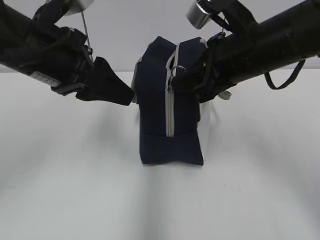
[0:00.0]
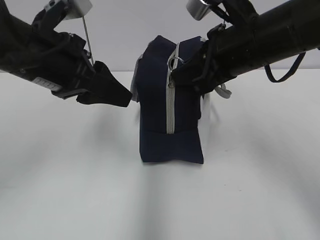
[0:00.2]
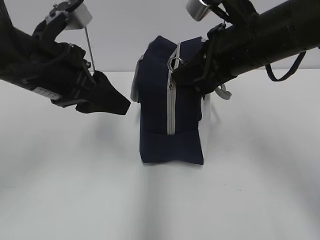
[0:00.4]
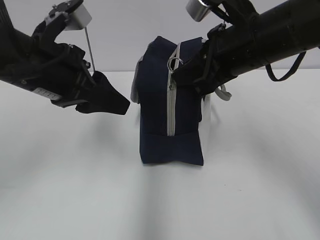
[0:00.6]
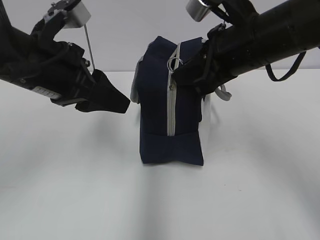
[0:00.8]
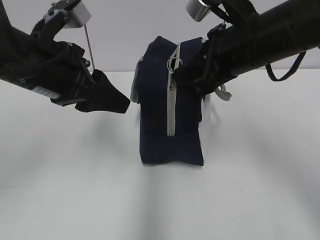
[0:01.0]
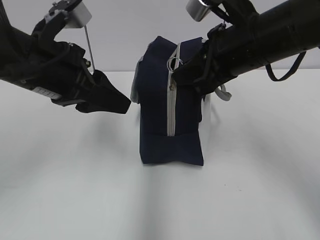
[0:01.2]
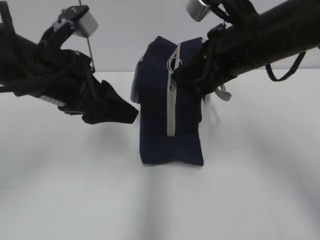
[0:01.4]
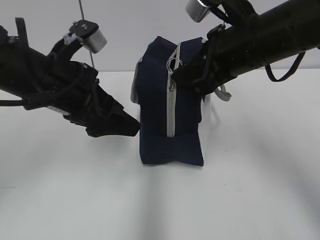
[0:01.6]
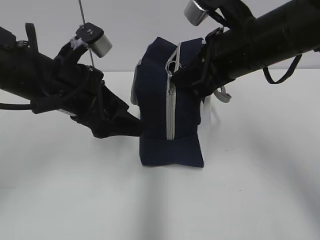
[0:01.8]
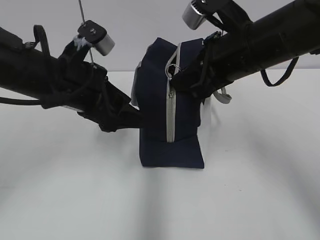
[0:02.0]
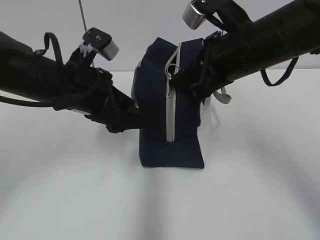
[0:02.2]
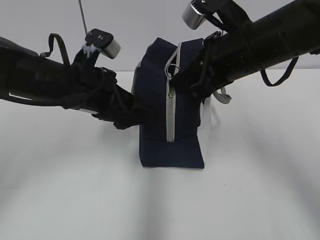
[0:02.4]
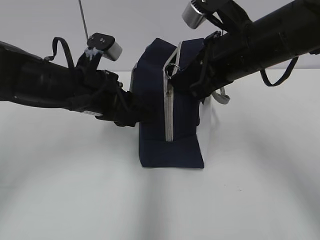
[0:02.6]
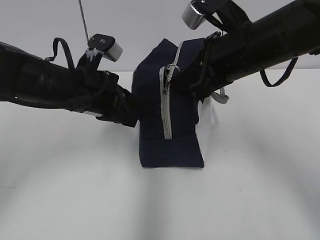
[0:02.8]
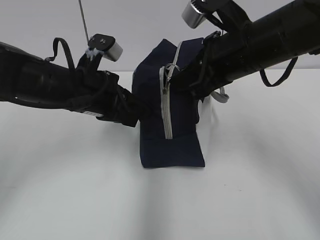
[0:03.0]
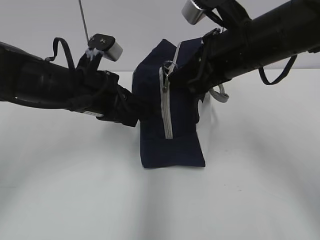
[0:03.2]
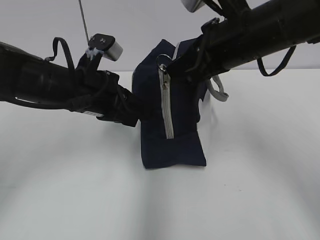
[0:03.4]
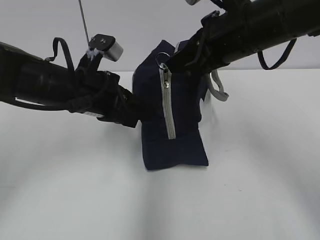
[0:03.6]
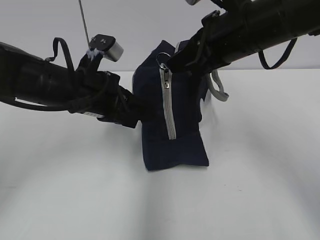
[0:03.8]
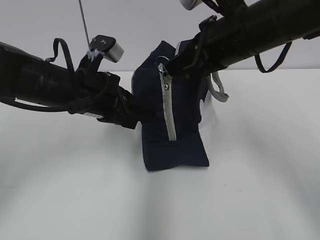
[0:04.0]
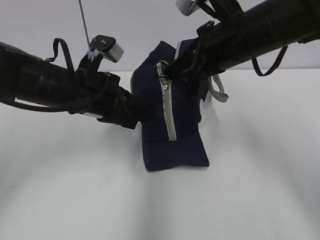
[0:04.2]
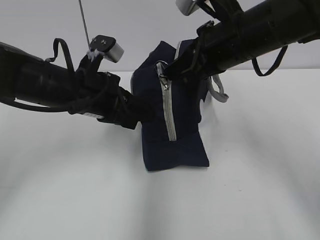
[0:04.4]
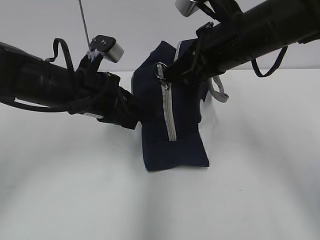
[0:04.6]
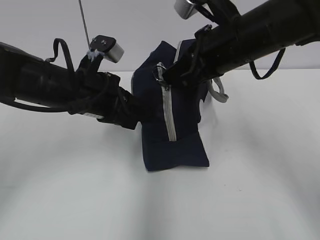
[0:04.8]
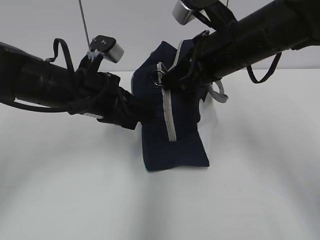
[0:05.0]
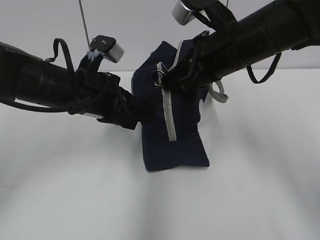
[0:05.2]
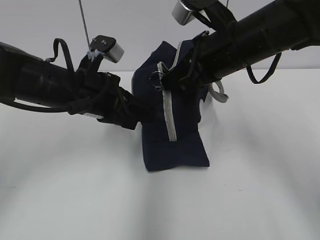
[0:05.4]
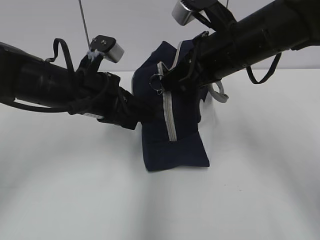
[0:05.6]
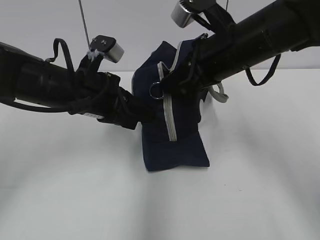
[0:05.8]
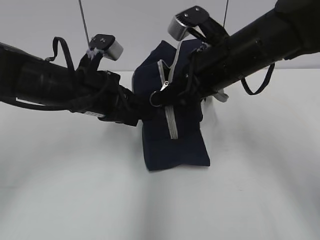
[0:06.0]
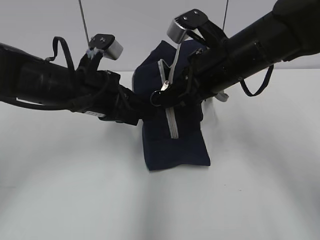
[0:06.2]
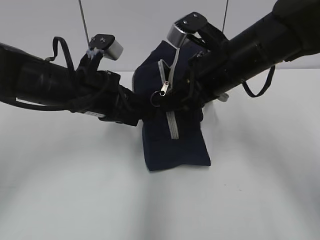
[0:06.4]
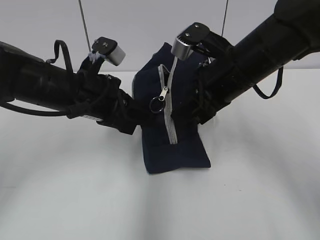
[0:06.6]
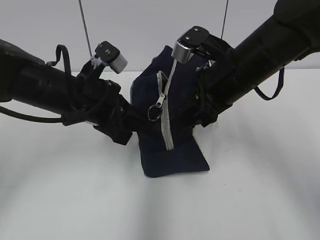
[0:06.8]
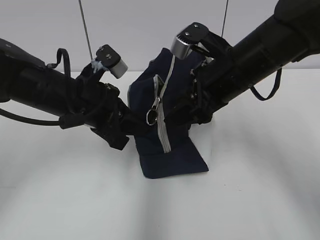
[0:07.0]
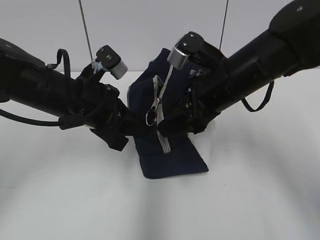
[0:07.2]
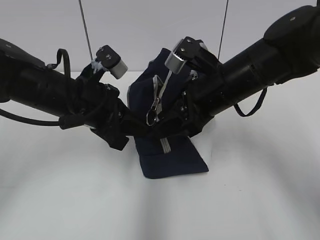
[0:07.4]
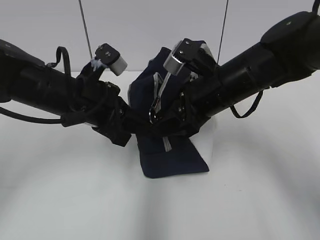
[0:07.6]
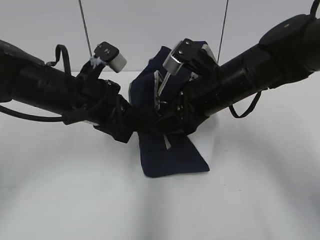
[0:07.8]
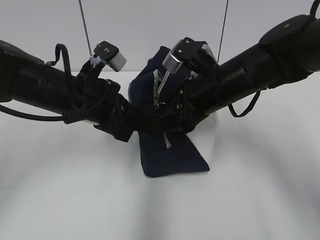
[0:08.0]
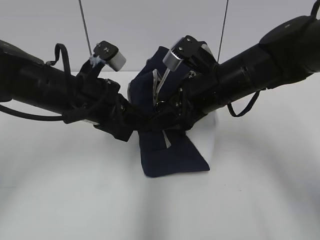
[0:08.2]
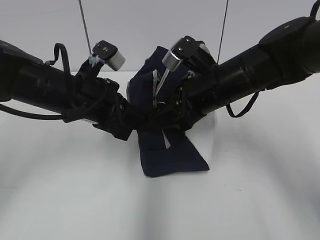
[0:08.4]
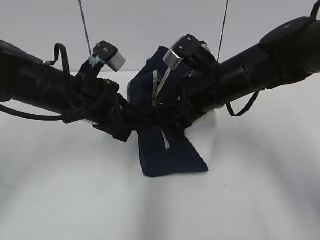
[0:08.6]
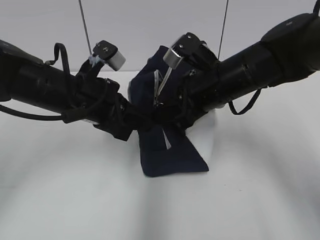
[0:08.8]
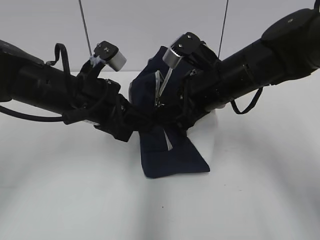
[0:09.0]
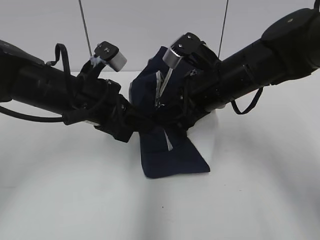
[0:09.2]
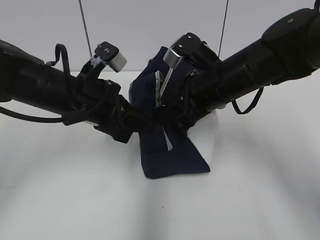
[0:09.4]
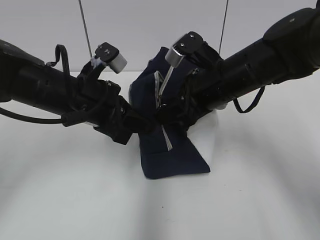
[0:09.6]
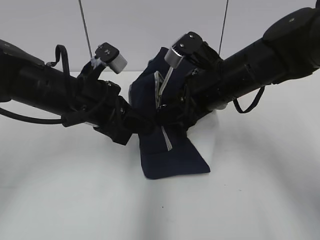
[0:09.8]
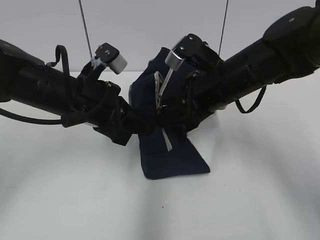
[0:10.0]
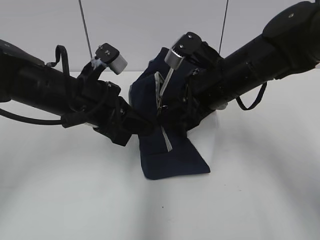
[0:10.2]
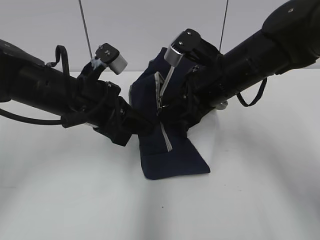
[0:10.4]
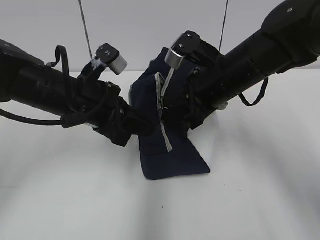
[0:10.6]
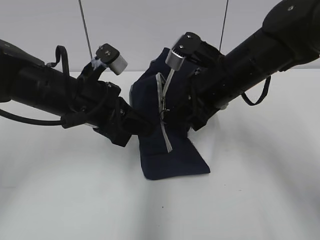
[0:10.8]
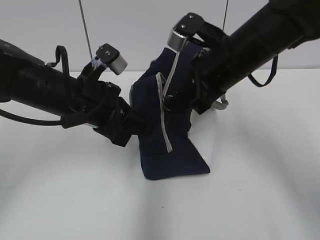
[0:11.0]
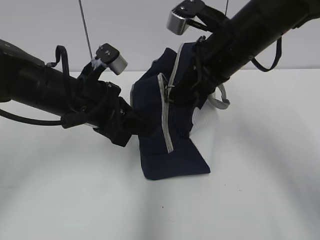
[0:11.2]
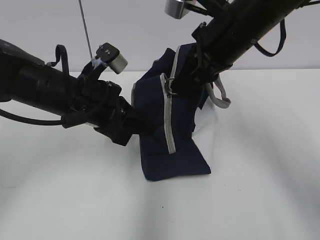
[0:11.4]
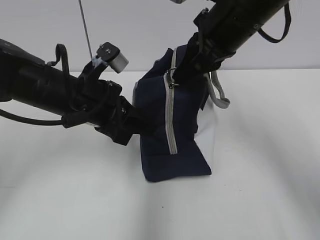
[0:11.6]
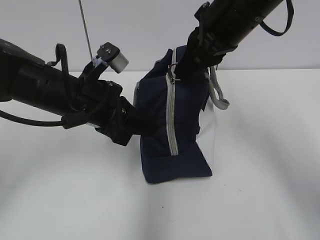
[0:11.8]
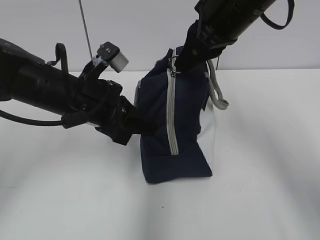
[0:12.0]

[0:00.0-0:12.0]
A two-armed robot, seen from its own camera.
Step, 0:00.0 to 0:02.6: Grab the lunch bag with your left hand.
0:00.0 to 0:01.6: The left gripper opens.
0:01.6 to 0:03.0: The left gripper ends up approximately 5 cm from where it was, and closes its fingers.
0:03.0 to 0:06.0: The grippers make only small movements.
0:06.0 to 0:07.6: The right gripper opens its fingers.
0:07.6 to 0:09.0: The right gripper closes its fingers.
0:09.0 to 0:10.4: The grippers stay close to where they were, moving slightly.
0:10.4 to 0:12.0: The right gripper moves upward, some 10 cm.

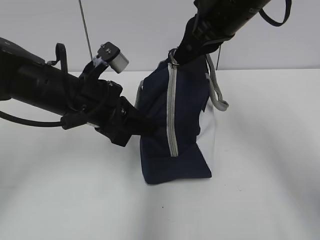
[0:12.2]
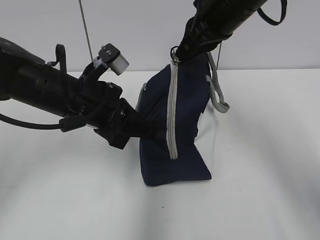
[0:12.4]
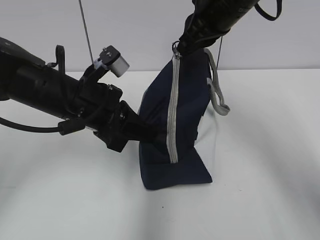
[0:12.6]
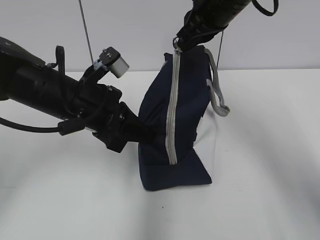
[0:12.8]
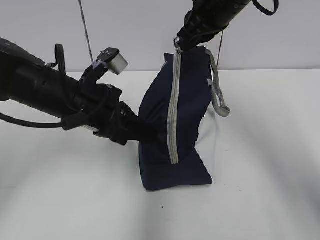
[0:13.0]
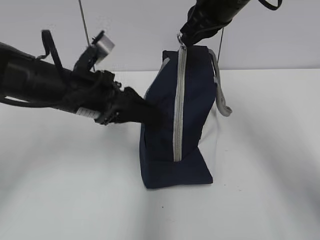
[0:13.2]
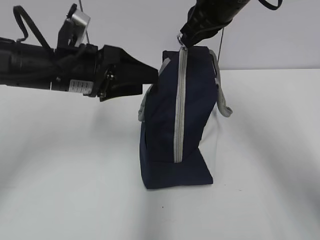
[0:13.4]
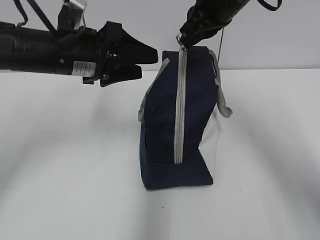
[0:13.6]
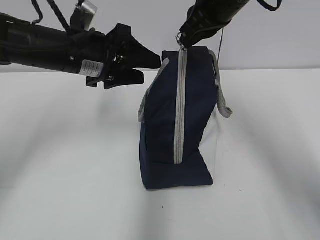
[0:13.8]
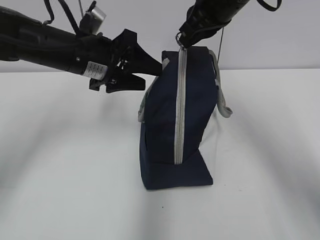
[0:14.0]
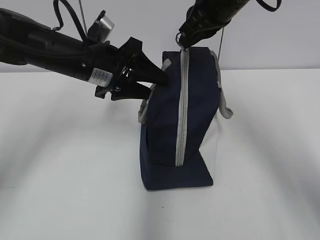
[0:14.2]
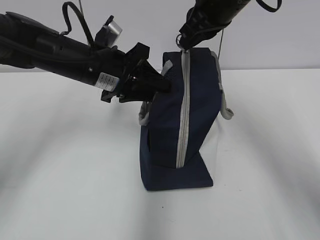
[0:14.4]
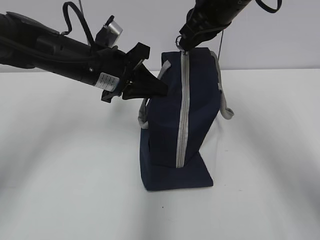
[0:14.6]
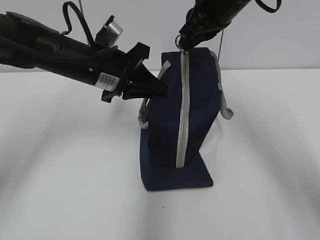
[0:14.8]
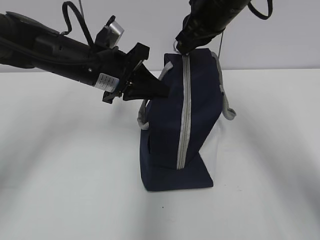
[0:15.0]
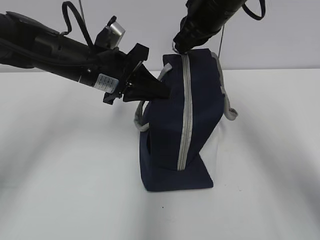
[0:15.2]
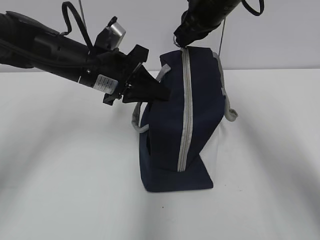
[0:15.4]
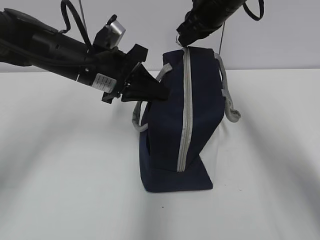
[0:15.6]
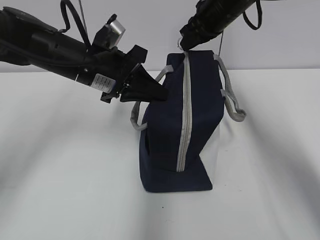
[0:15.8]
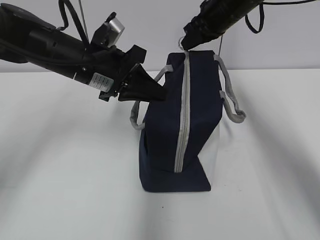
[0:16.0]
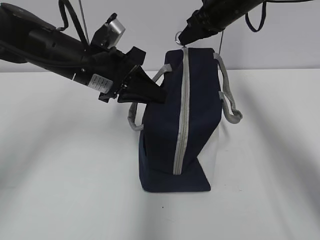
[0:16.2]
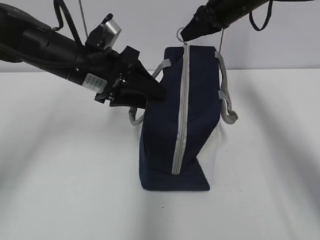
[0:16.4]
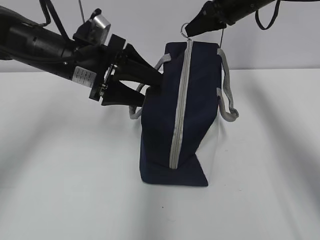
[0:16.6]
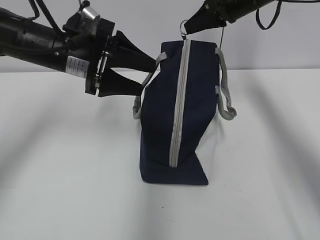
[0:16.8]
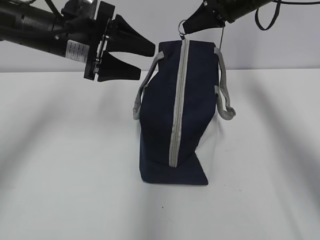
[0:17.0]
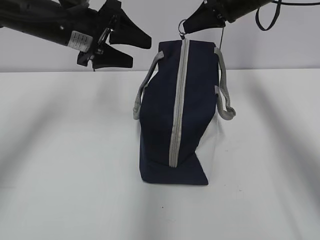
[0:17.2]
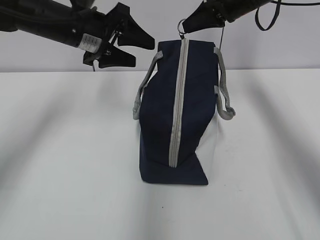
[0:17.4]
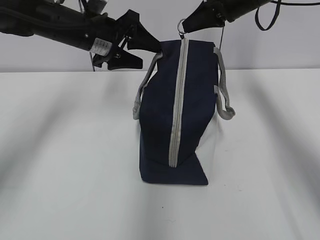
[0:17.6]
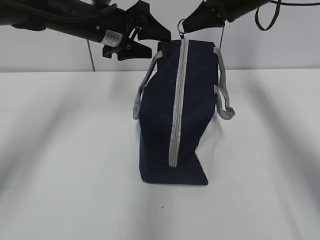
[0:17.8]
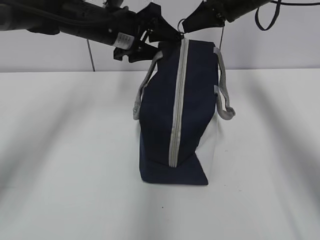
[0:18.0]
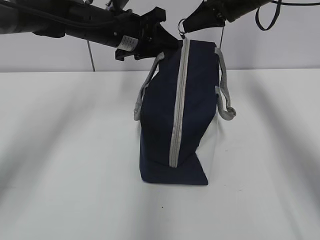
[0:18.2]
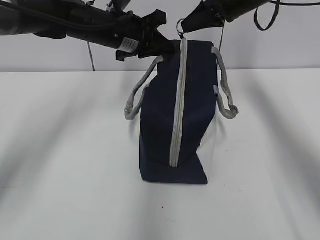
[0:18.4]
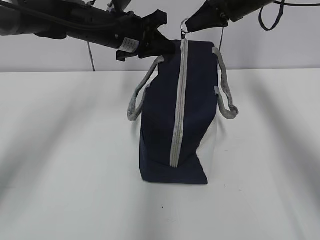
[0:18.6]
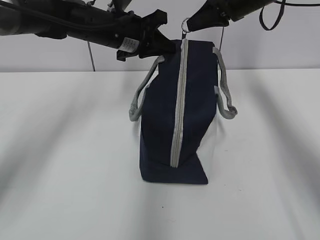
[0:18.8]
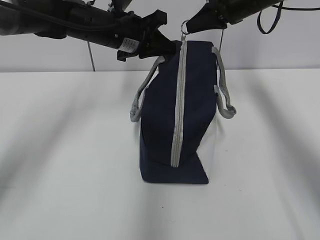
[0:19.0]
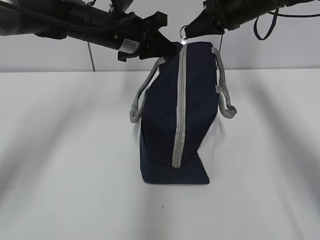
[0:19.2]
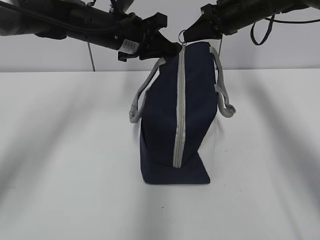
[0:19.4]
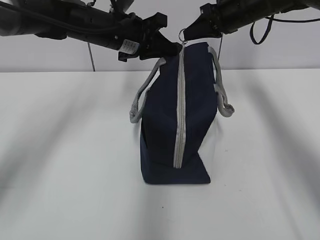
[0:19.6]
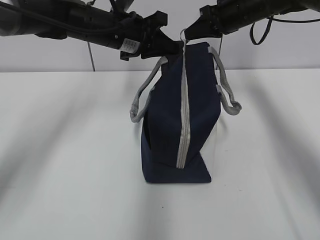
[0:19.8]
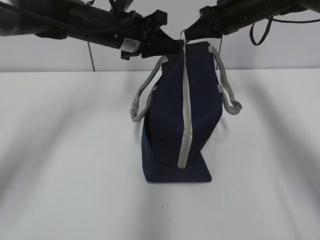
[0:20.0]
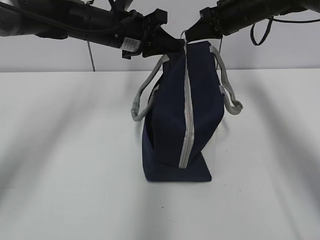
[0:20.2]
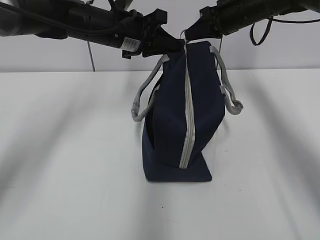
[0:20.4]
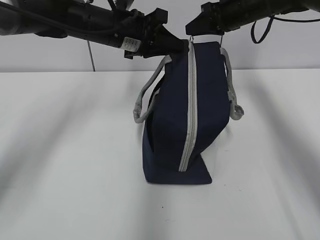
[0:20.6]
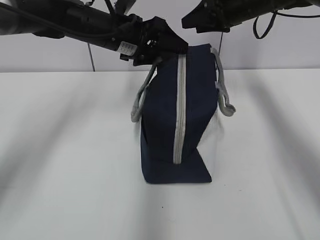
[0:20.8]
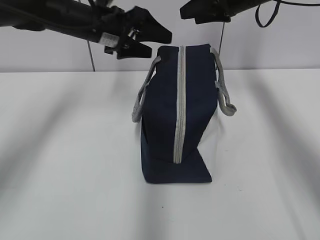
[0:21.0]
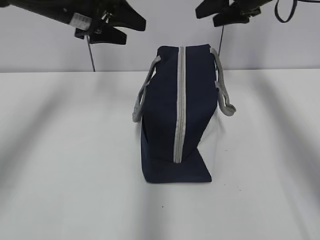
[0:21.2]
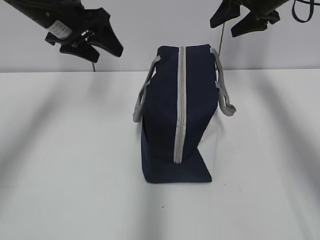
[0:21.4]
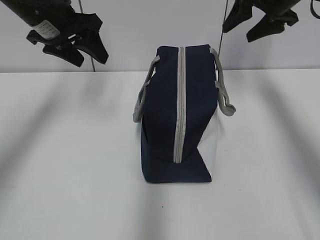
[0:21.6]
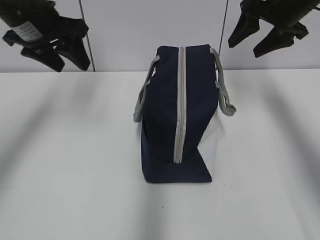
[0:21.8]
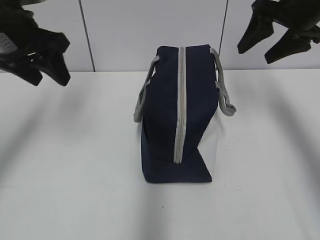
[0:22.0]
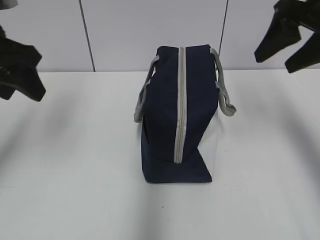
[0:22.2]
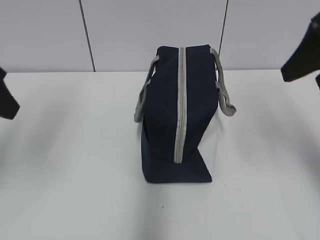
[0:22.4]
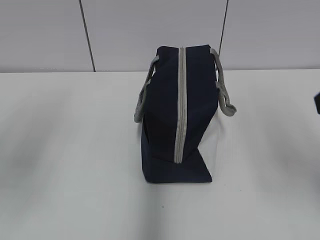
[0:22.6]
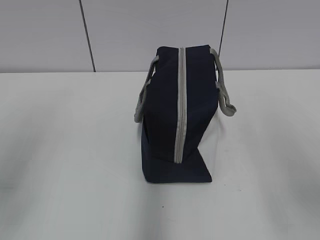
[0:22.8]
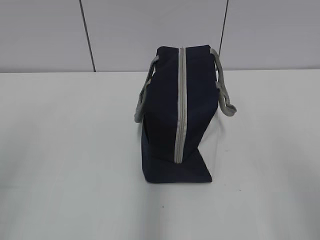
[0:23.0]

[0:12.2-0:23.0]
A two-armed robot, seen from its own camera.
Step, 0:12.2 to 0:20.4: Pull the zipper with your right hand.
0:12.2 to 0:13.8: The left gripper shifts roughly 5 cm forward, and opens.
0:13.8 to 0:15.2: The left gripper closes its fingers.
0:15.2 to 0:16.8: The right gripper is displaced to the right and forward by approximately 10 cm. The left gripper opens.
0:16.8 to 0:18.4: The left gripper heads forward and to the right, covering some 10 cm, and closes its fingers.
0:18.4 to 0:20.0: The right gripper shifts by roughly 5 cm.
0:20.0 to 0:21.4: The right gripper moves some 5 cm, and opens up. The left gripper heads to the left, covering about 10 cm, and opens.
0:21.4 to 0:23.0: Both grippers travel together backward, approximately 40 cm.
